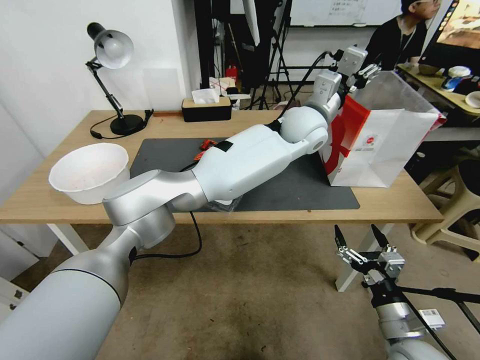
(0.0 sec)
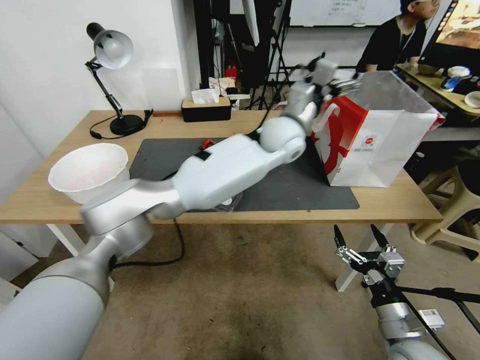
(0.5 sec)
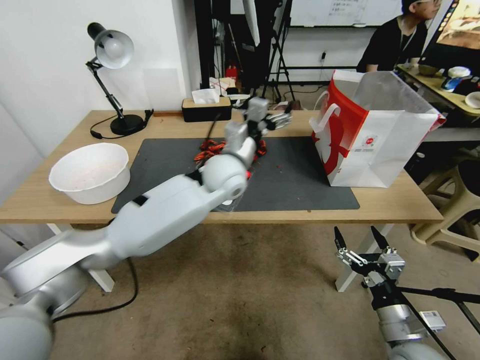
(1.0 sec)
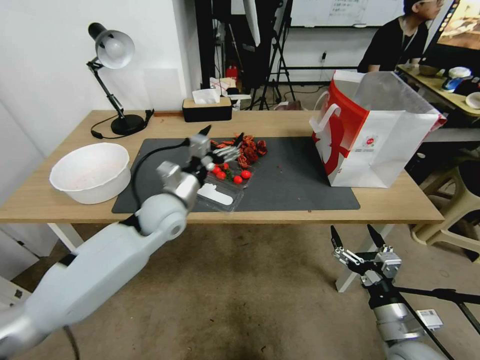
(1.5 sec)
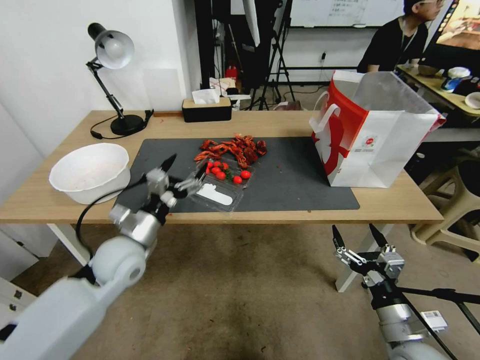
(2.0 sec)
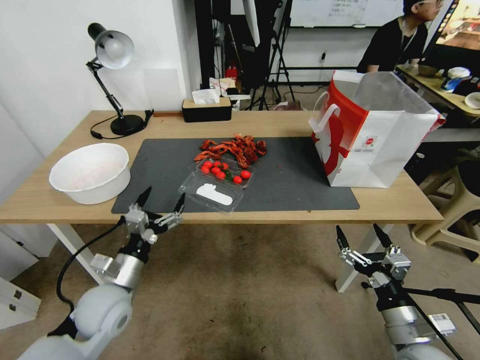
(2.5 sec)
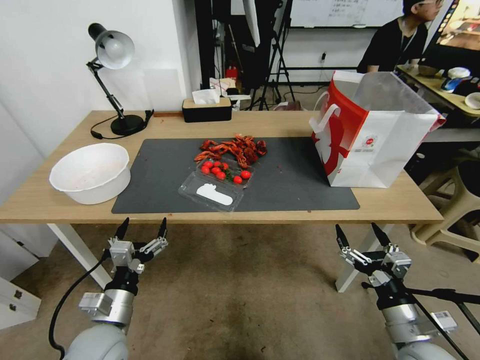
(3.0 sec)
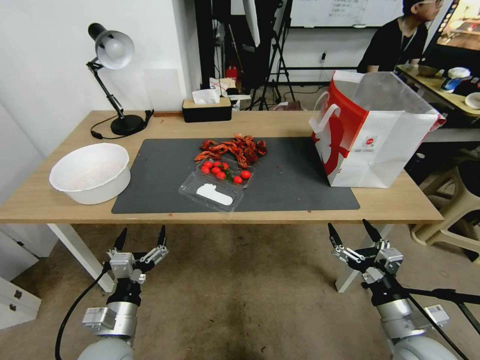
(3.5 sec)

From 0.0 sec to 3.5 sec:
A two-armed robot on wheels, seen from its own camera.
From 0.0 sec to 2.0 sec: The left gripper is displaced to the left, backward and downward by approximately 50 cm, and opens.
From 2.0 sec to 3.5 sec: The left gripper moves backward and downward, some 20 cm.
